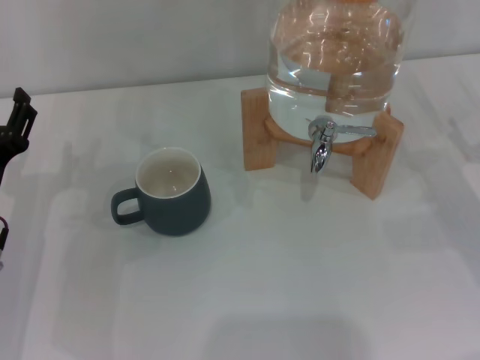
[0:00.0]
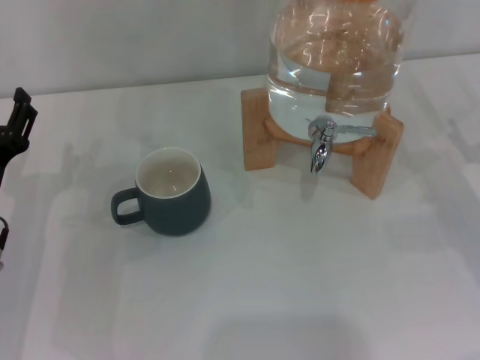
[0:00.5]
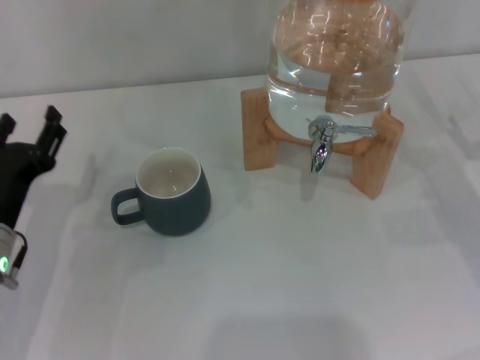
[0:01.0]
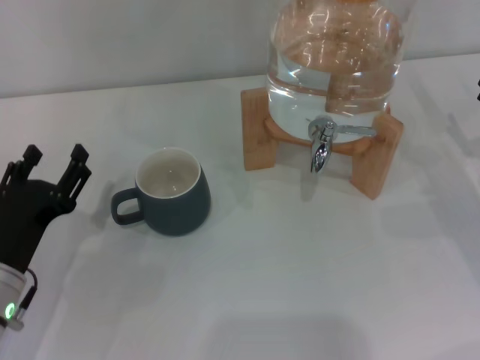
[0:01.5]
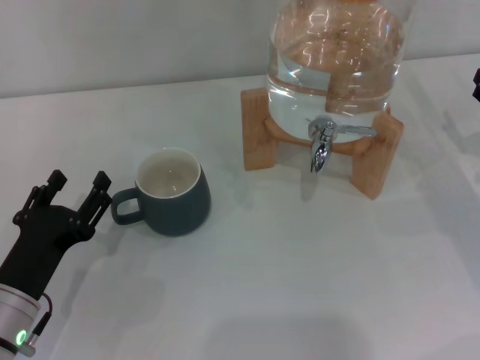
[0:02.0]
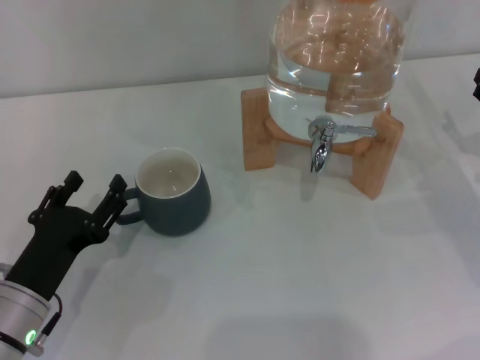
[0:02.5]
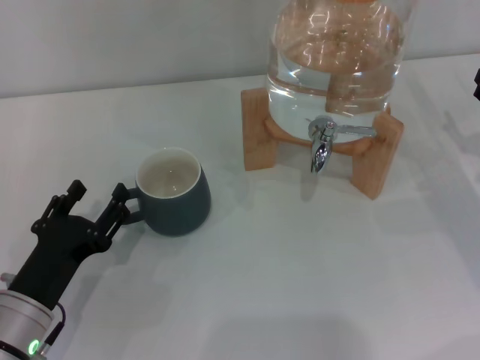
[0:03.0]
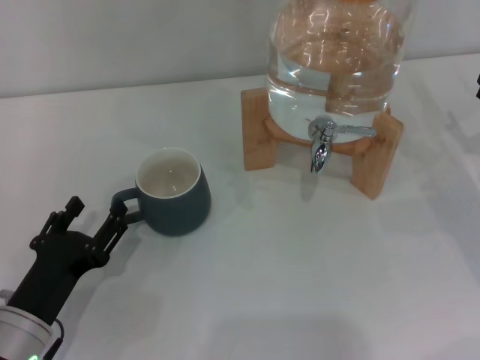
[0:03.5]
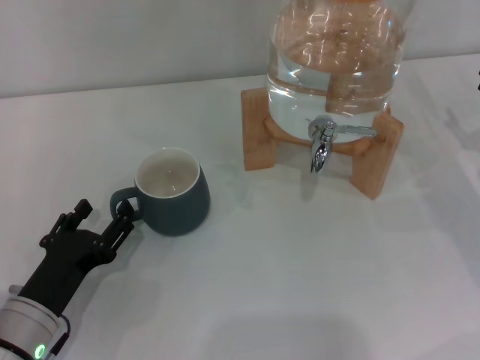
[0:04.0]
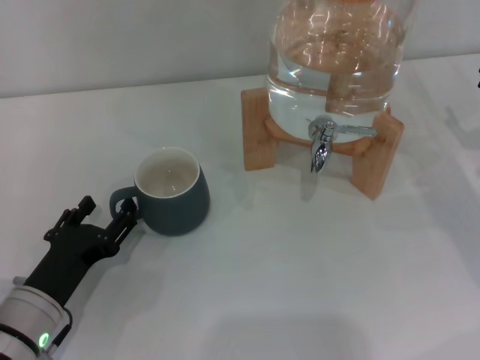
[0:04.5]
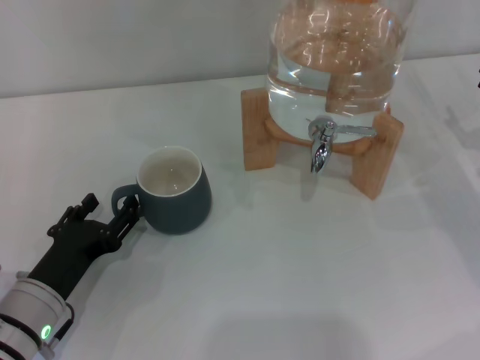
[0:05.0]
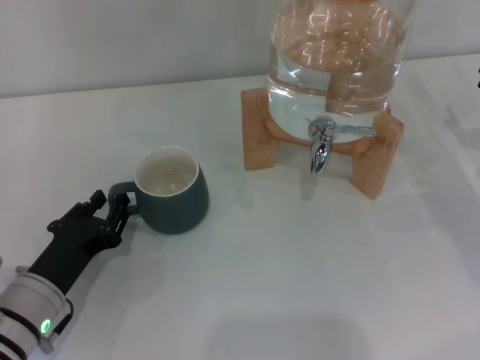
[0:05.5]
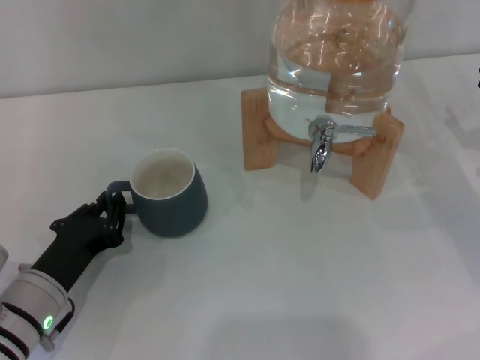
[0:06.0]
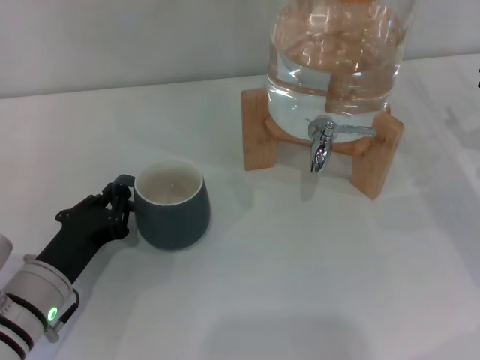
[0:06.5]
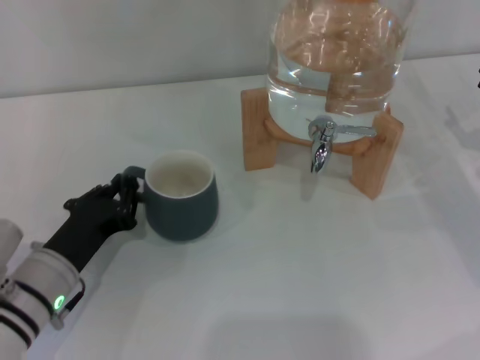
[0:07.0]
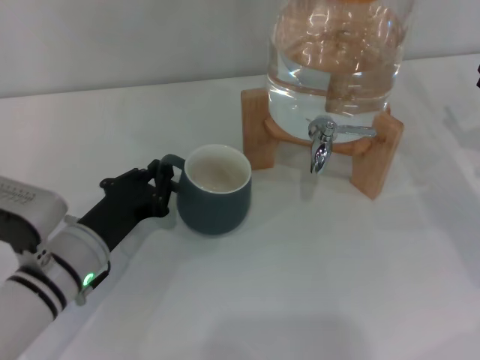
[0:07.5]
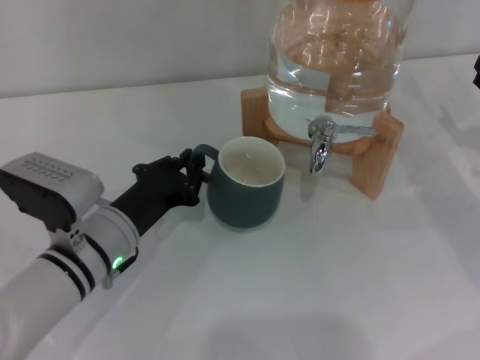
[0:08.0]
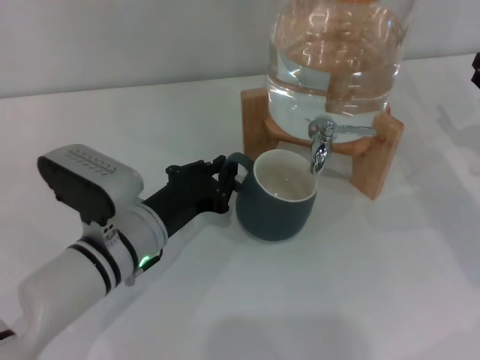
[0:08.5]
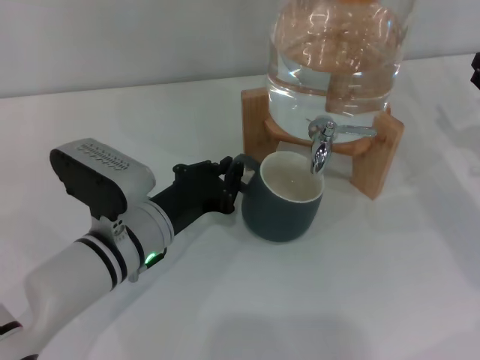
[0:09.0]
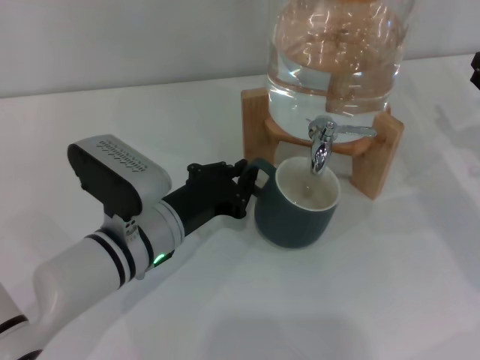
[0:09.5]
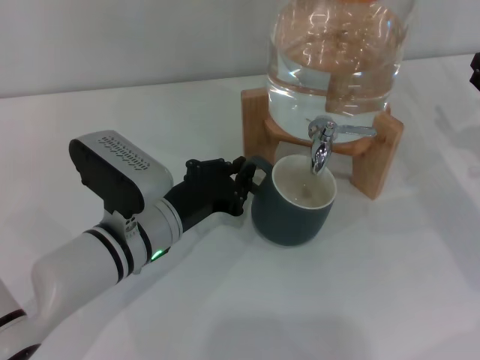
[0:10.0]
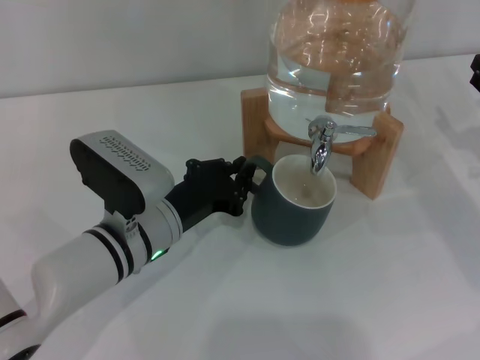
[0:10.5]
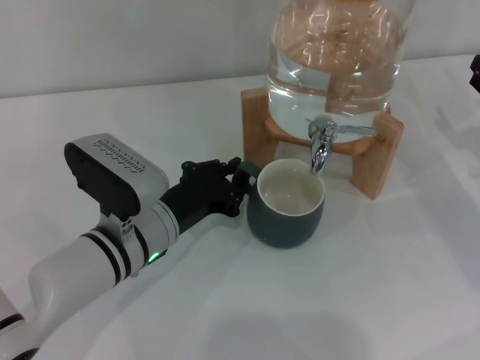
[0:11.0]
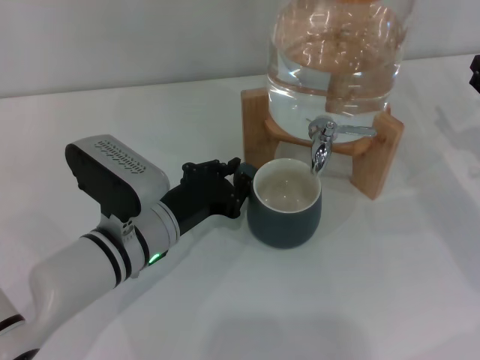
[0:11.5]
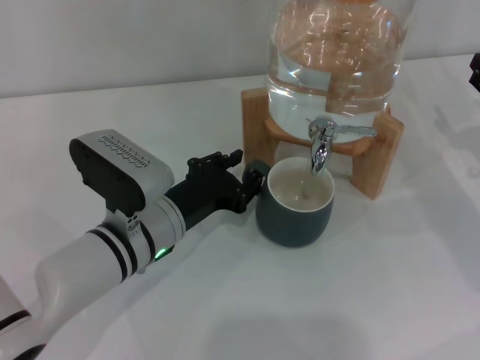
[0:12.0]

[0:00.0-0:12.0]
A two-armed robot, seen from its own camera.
Task of the whole recording: the left gripper pick up the black cup and place it horizontally under the faucet, the right gripper turn on the faucet to fill the cup, and then turn off the faucet.
0:00.0 to 0:02.0: The left gripper is displaced backward by approximately 5 cm.
0:02.0 to 0:04.0: The grippers stay close to where they were, moving slightly.
0:04.0 to 0:06.0: The left gripper closes its fingers.
0:06.0 to 0:08.0: The left gripper moves to the right, some 5 cm.
0:08.0 to 0:10.0: There are only small adjustments of the grippers.
0:10.0 to 0:12.0: Both grippers stay put.

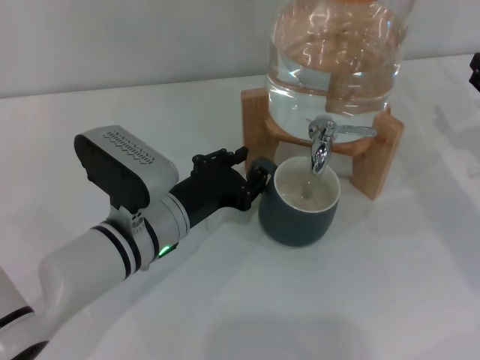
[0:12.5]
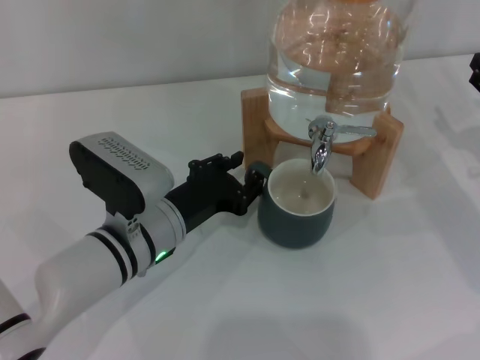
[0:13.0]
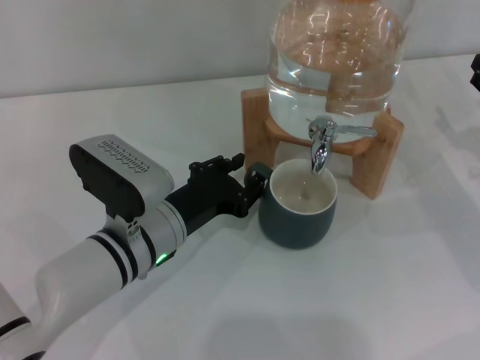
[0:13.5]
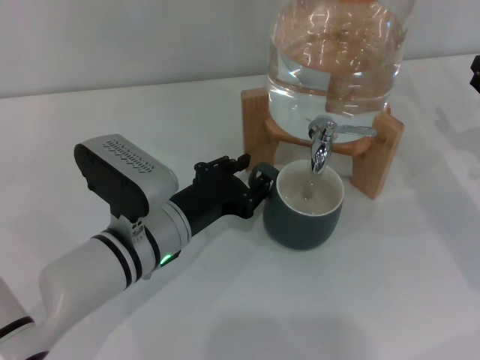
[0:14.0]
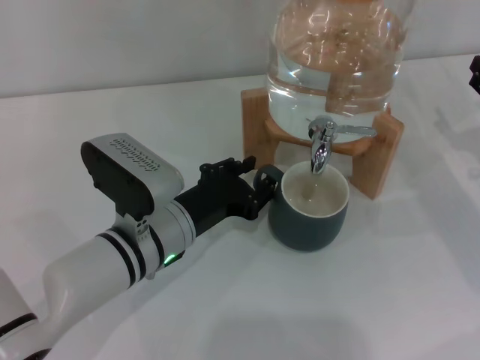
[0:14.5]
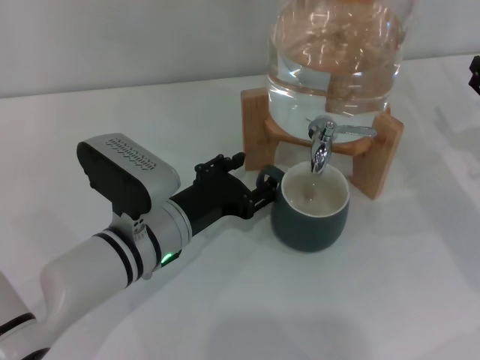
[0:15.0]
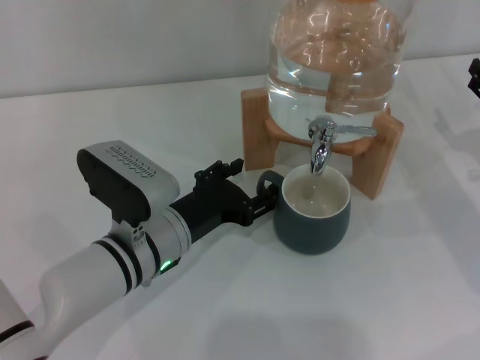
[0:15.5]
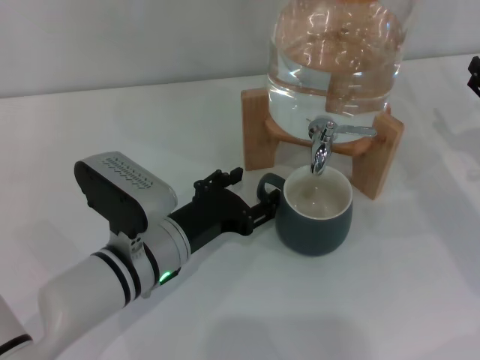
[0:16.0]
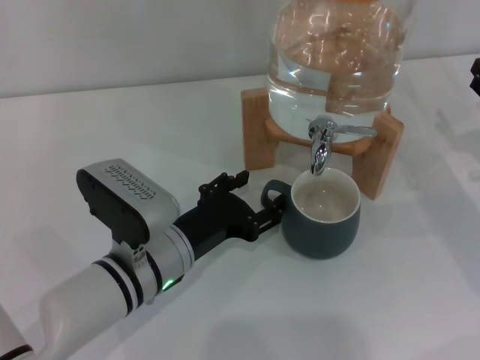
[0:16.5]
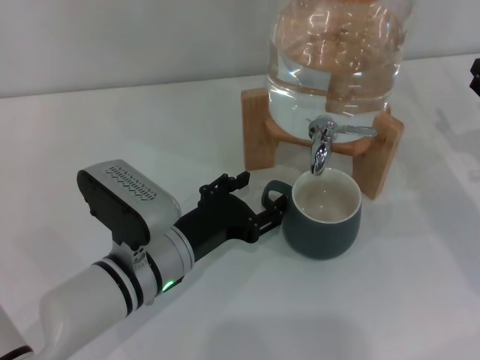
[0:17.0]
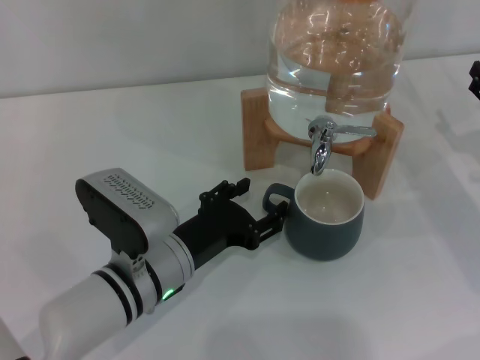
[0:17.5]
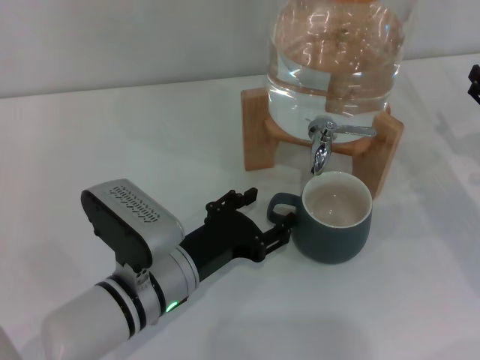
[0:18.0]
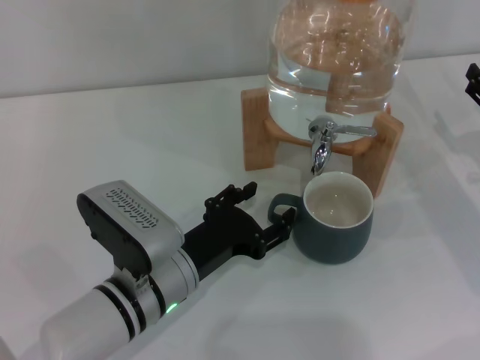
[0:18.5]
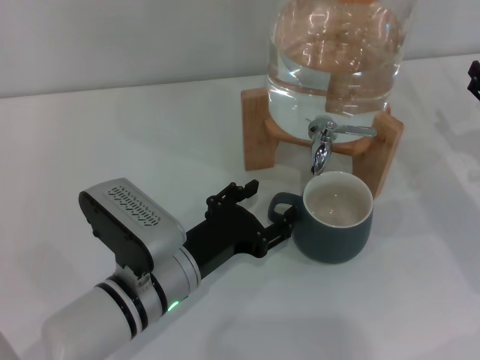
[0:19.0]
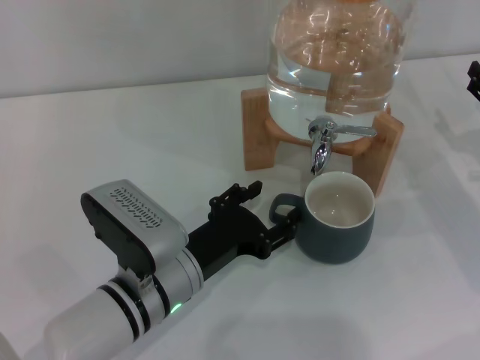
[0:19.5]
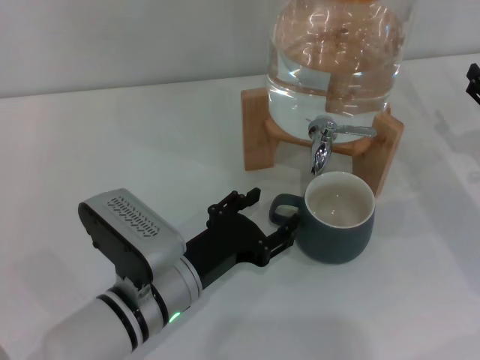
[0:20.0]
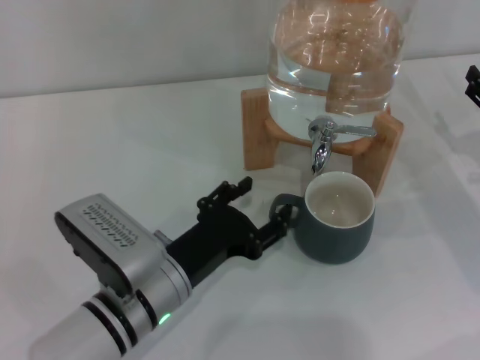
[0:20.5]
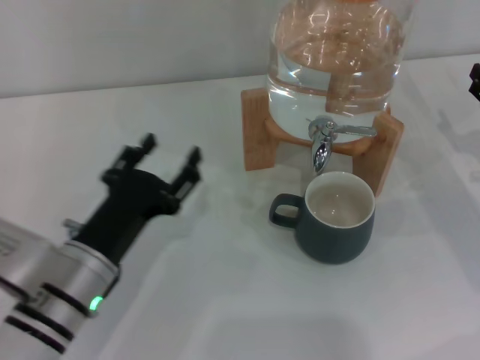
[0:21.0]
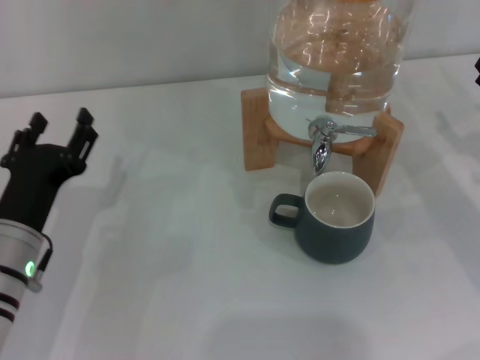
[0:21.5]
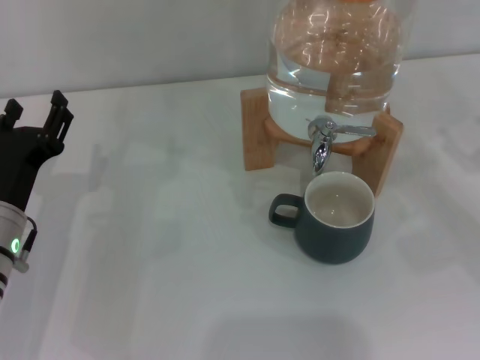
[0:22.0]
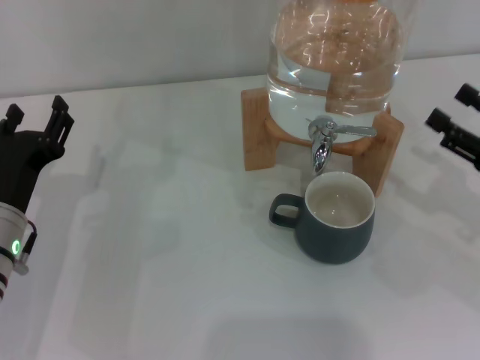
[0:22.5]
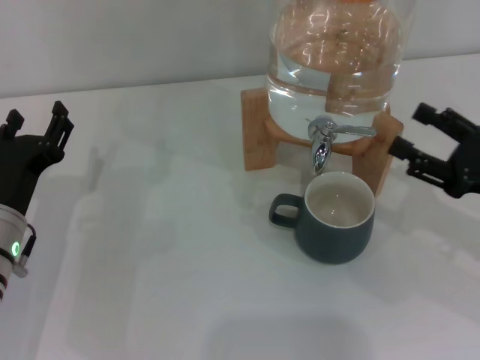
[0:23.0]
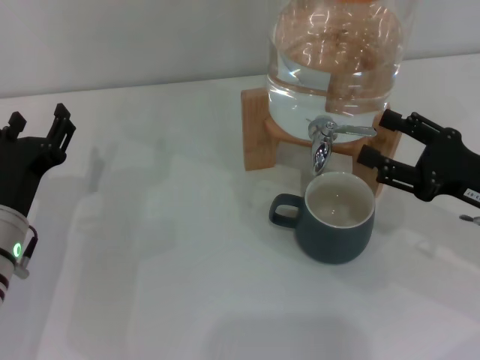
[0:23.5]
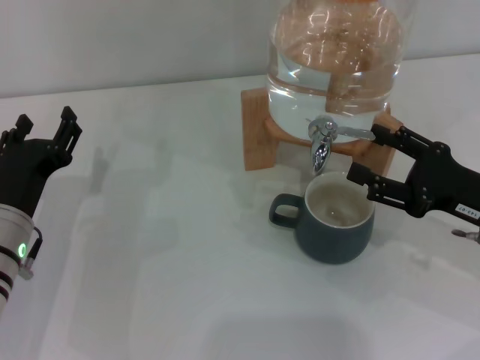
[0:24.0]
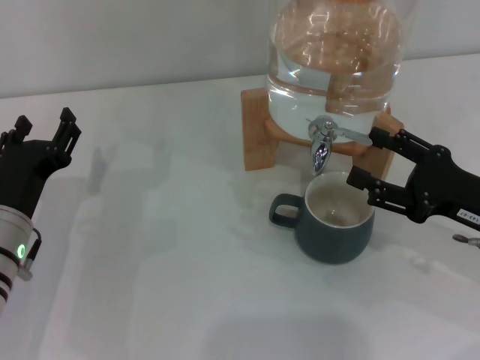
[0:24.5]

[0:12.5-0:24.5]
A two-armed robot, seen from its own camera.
Task of the whole recording: the left gripper pick up the black cup and place it horizontally under the faucet, the right gripper turn on the faucet to fill the cup, and then turn off the faucet.
Step, 0:12.5 to 0:20.5: Move the cup beneath the water dispenser nozzle with the left gripper.
0:12.5 to 0:14.5: Both grippers stay put.
0:14.5 to 0:16.5: The left gripper opens up.
0:16.5 to 0:20.5: The grippers stay close to where they were, moving slightly.
0:20.5 to 0:22.5: The right gripper travels backward by approximately 5 cm. Meanwhile the left gripper shifts roughly 15 cm to the left and forward.
0:22.5 to 0:24.5: The right gripper heads to the left, covering roughly 5 cm.

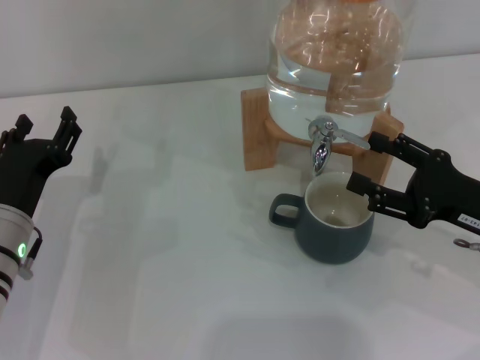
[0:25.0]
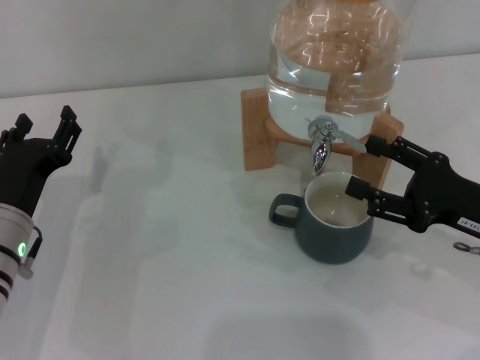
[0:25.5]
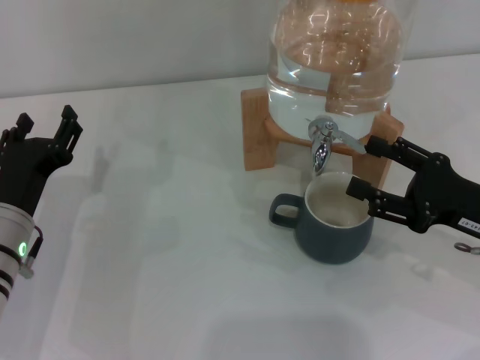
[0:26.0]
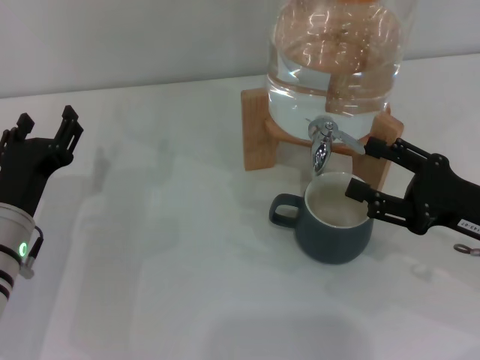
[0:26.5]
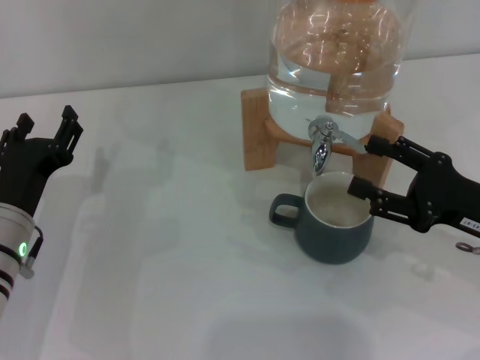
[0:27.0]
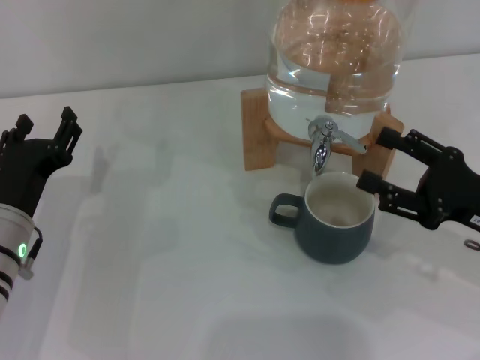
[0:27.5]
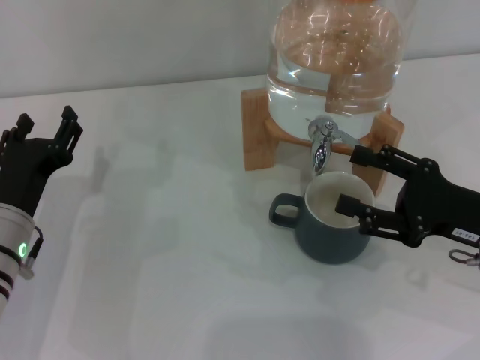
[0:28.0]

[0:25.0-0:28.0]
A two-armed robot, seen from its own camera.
Task of the whole recording: the left gripper pick up the black cup and place it horizontally under the faucet, the right gripper turn on the faucet to fill the cup, and then turn off the faucet.
Step, 0:25.0 to 0:27.0: Open the dispenser valve and fill the cup with water with the right gripper.
0:25.0 to 0:26.5: Both grippers stay about where they are.
0:26.5 to 0:28.0: The grippers stay close to where they were, moving slightly.
